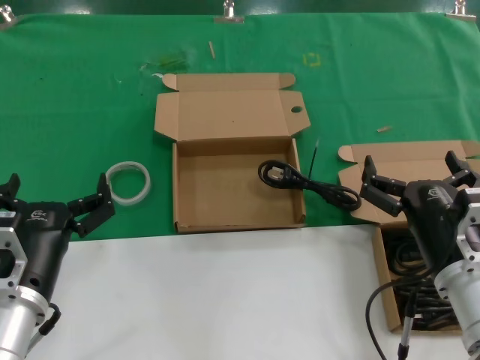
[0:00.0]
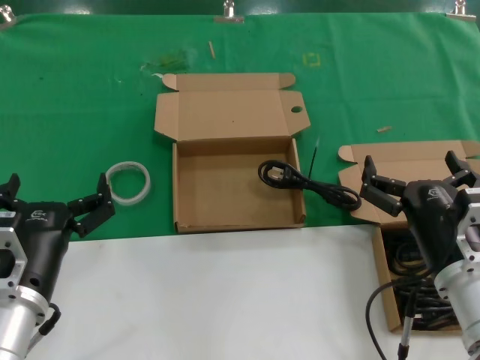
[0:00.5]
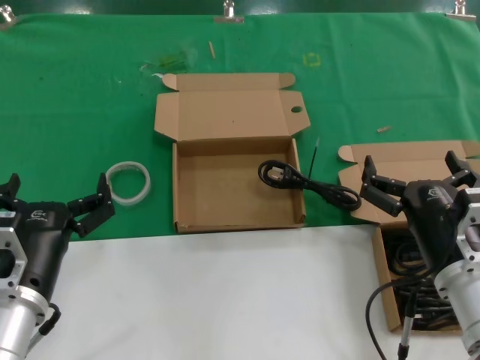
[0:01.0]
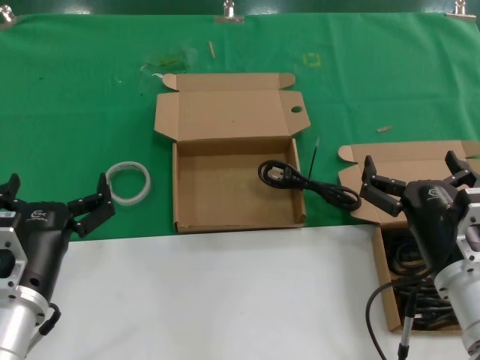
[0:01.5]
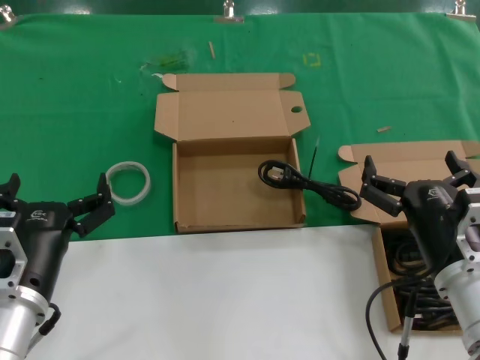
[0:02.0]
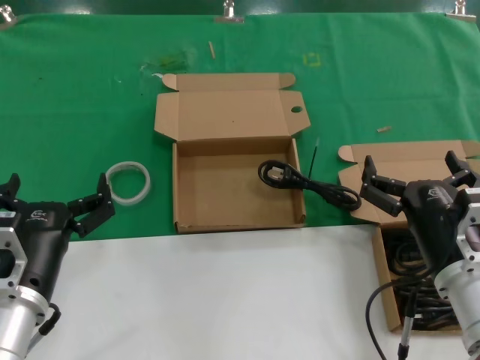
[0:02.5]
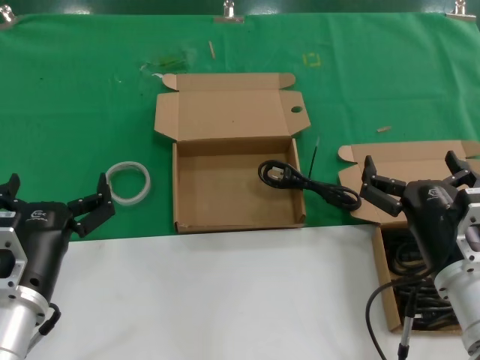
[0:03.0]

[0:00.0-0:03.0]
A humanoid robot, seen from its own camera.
Task of the whole recording: take the parts from the box containing them and put them into an empty box.
0:00.0 to 0:03.0: Both hands stay about where they are.
